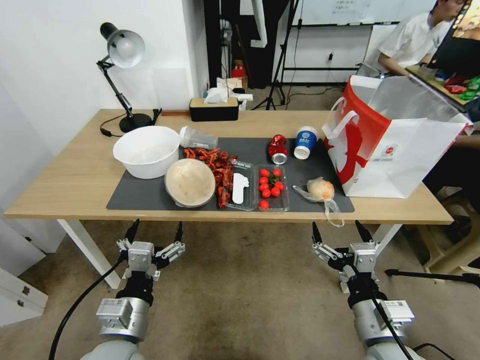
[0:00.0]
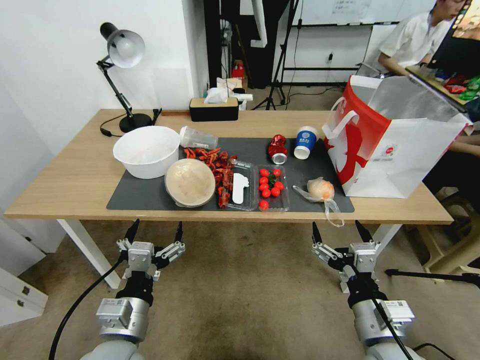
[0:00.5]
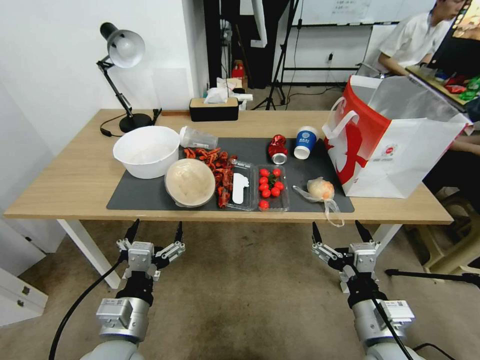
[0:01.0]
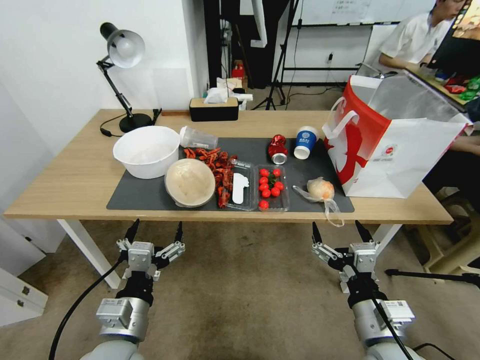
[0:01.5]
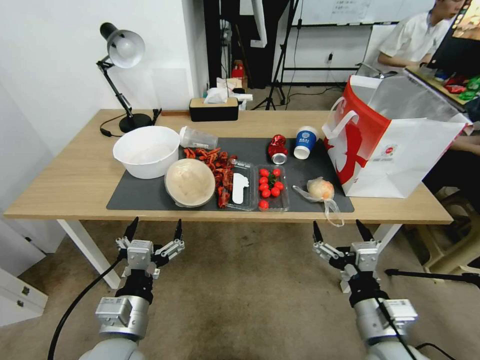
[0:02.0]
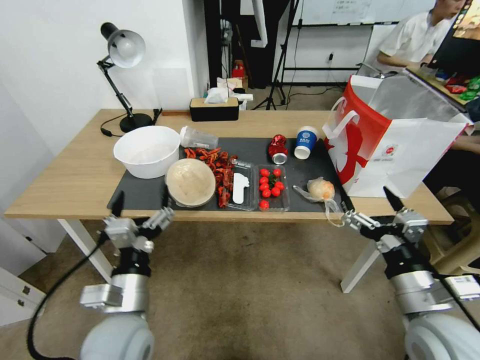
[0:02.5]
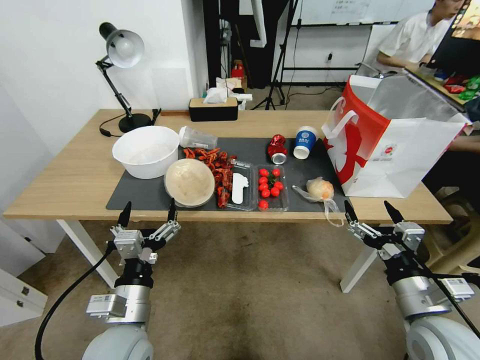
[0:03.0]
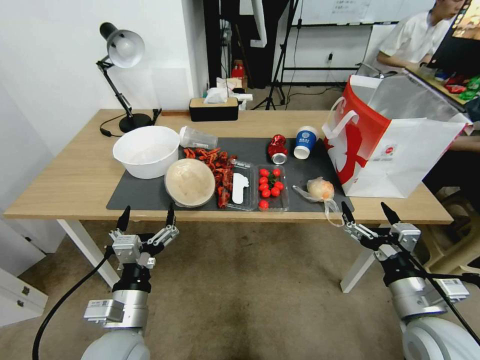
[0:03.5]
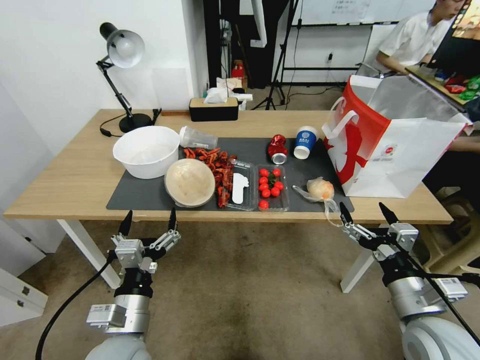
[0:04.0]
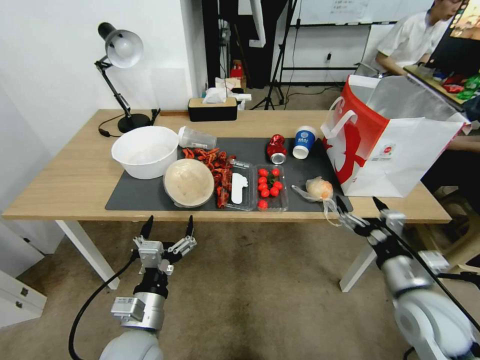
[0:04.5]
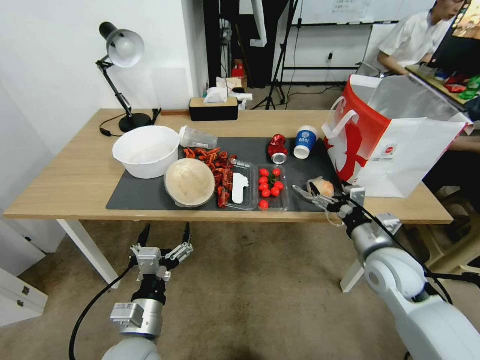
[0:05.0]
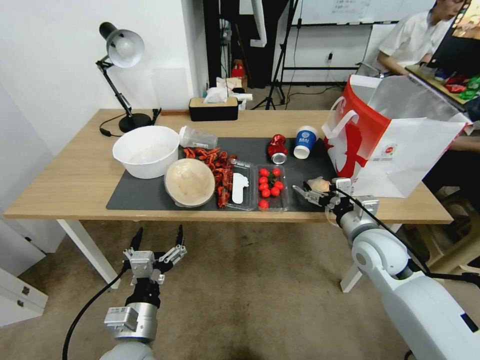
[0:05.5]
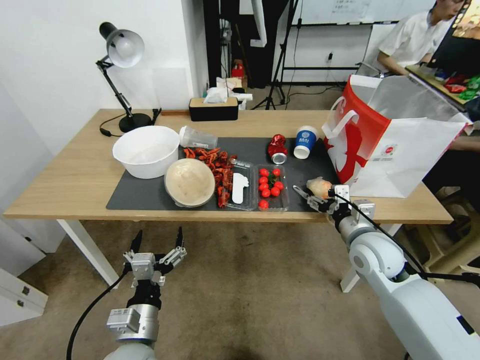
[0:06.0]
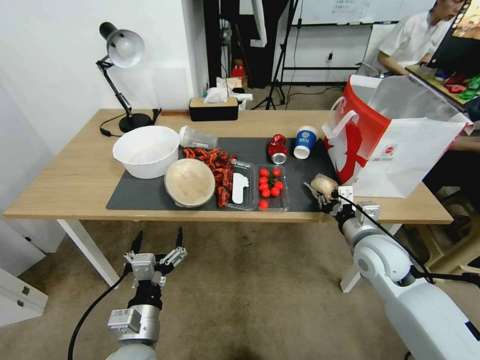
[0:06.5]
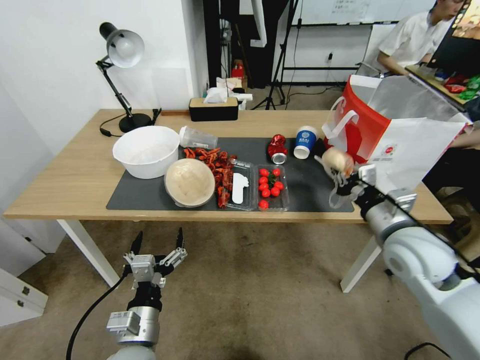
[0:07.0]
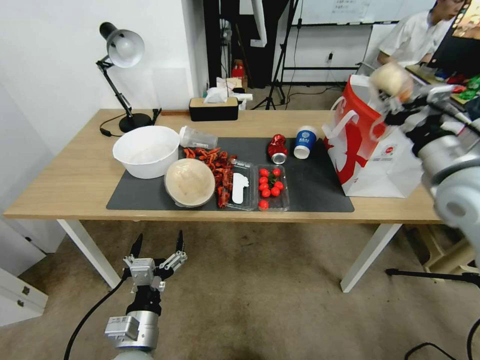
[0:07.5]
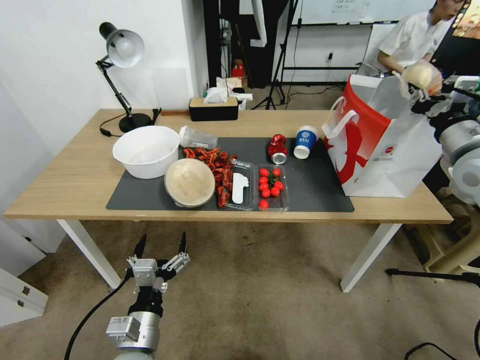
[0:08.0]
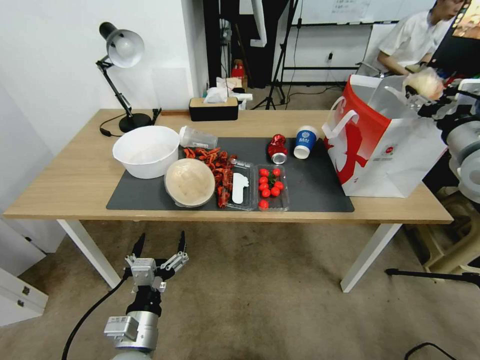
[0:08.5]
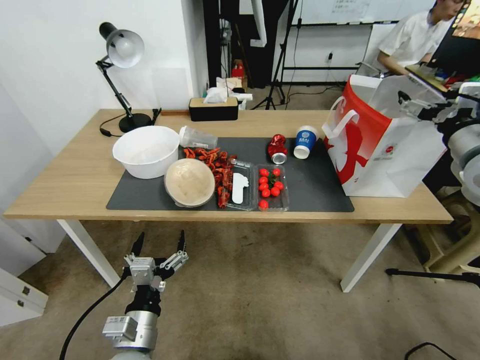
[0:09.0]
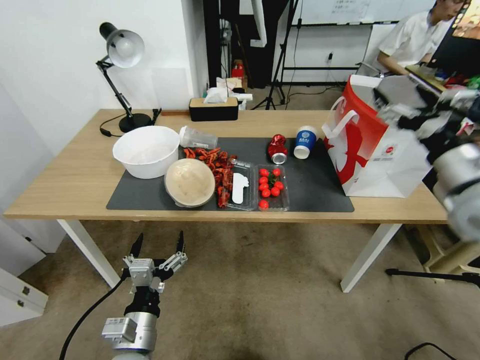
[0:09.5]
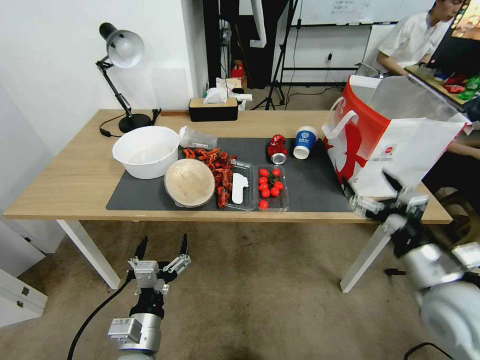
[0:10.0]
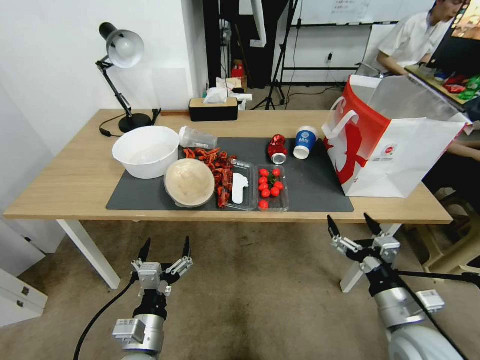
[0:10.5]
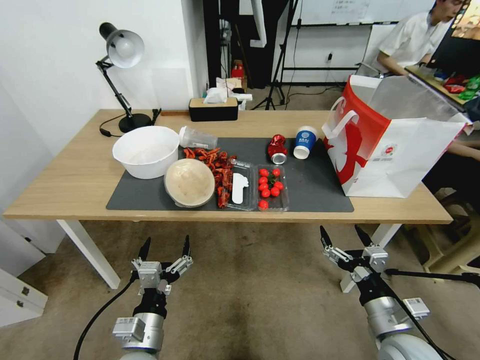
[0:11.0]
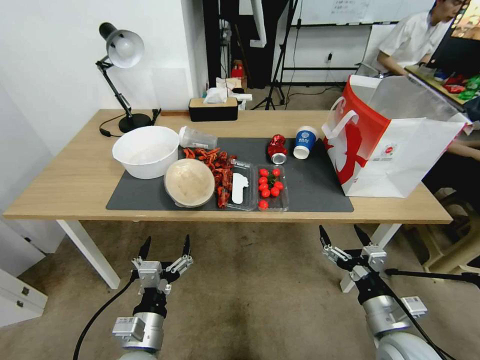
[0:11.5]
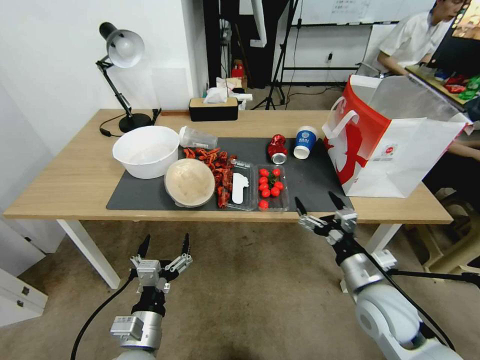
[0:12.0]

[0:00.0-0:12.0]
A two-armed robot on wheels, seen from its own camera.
0:02.0 to 0:04.0: The right gripper heads to the right, covering about 10 cm.
0:04.0 to 0:06.0: The right gripper goes about 15 cm forward.
0:06.0 to 0:08.0: The right gripper travels upward and to the right by about 25 cm, and closes its fingers.
0:08.0 to 0:10.0: The right gripper shifts approximately 25 cm backward, downward and to the left, and opens its fingers.
0:10.0 to 0:12.0: The right gripper heads downward and to the left, covering approximately 10 cm.

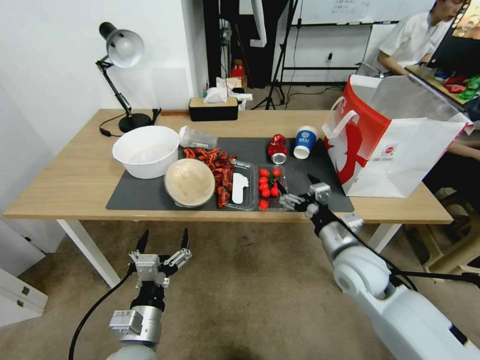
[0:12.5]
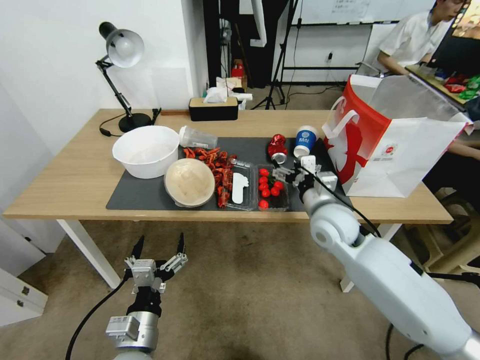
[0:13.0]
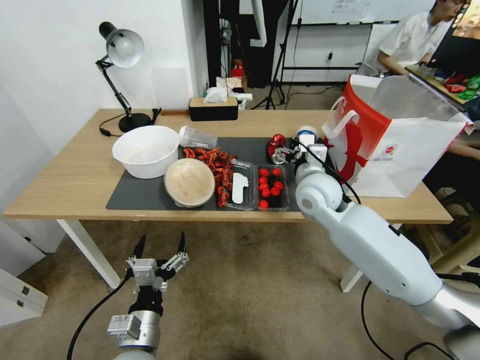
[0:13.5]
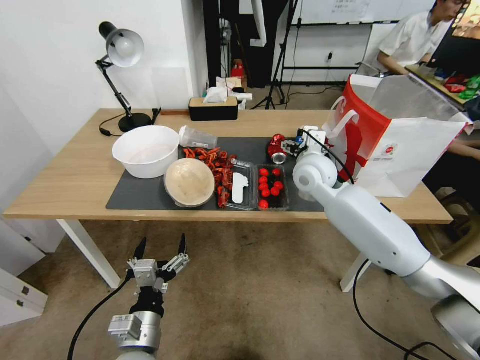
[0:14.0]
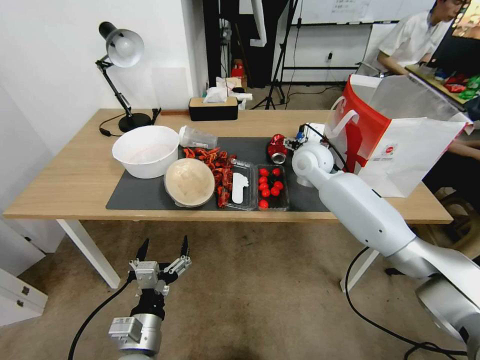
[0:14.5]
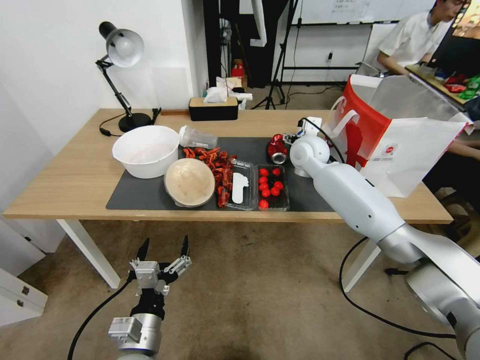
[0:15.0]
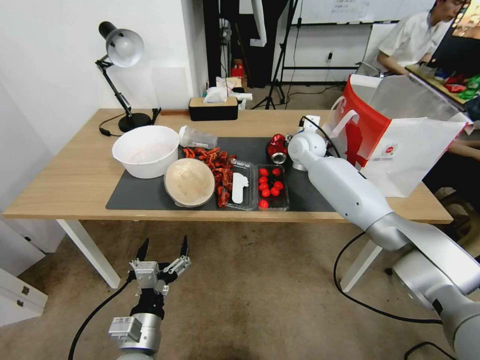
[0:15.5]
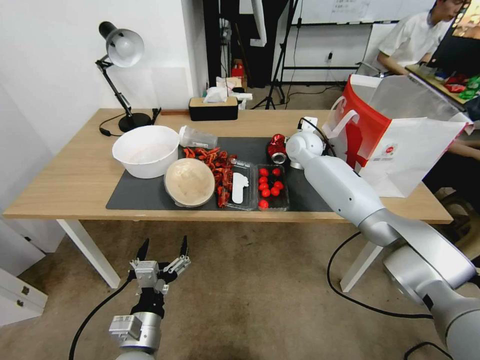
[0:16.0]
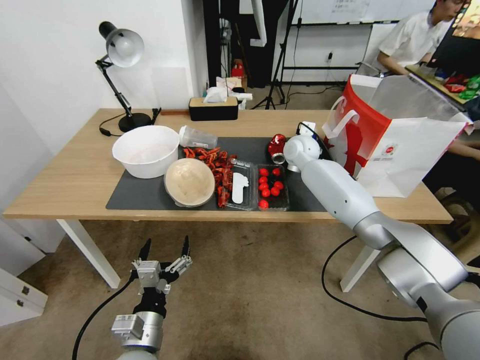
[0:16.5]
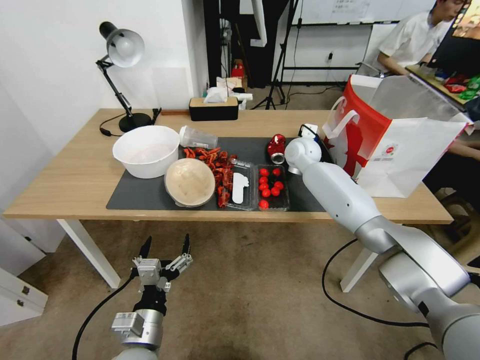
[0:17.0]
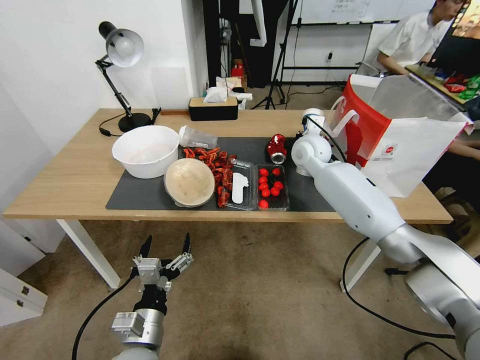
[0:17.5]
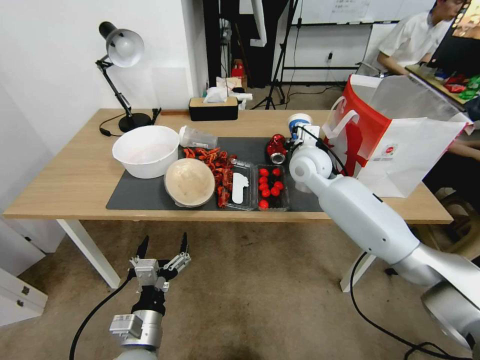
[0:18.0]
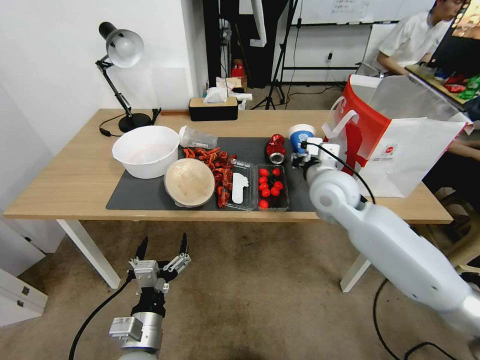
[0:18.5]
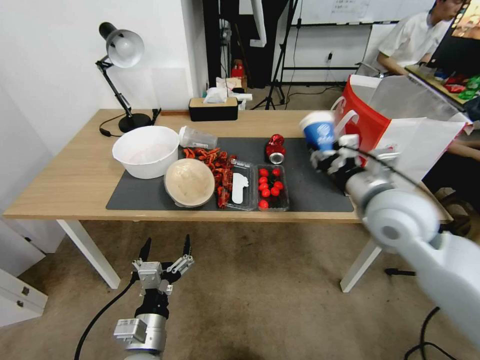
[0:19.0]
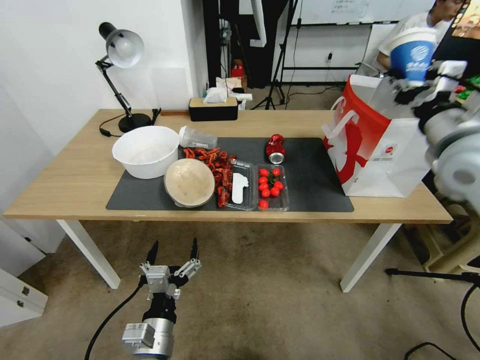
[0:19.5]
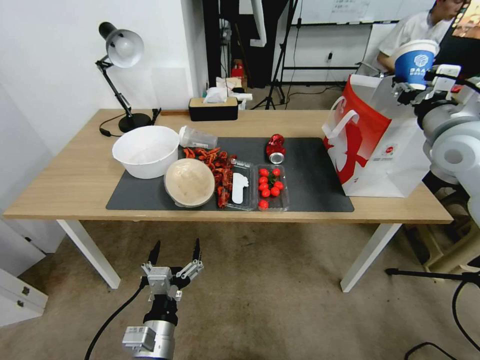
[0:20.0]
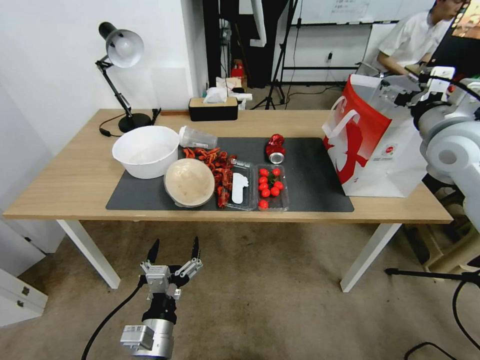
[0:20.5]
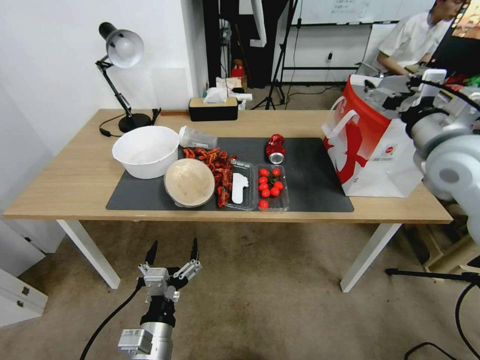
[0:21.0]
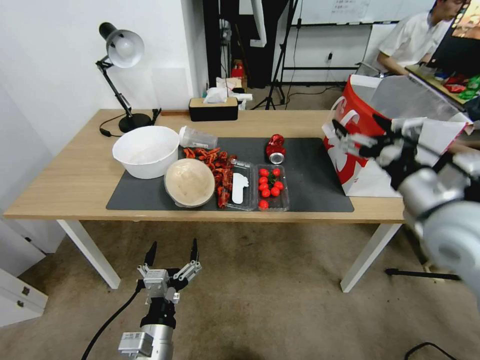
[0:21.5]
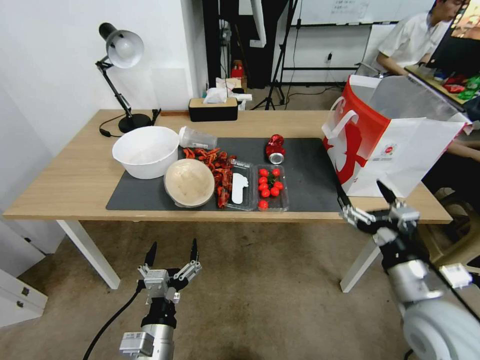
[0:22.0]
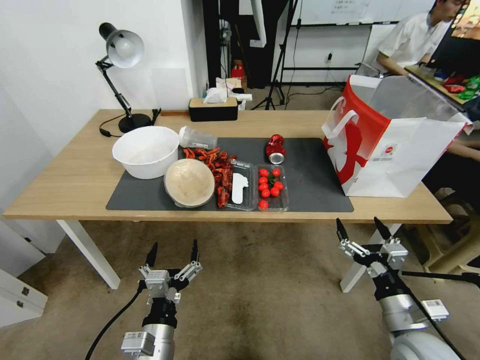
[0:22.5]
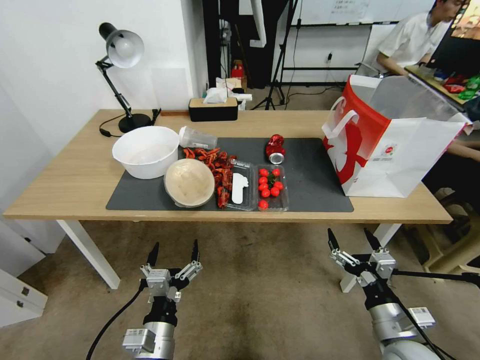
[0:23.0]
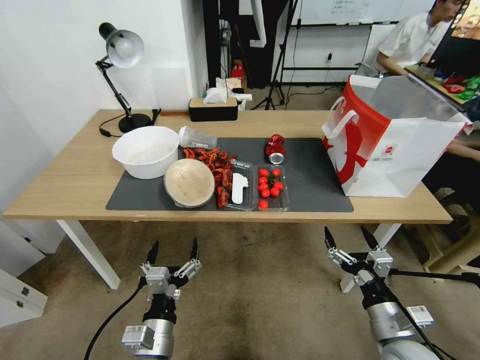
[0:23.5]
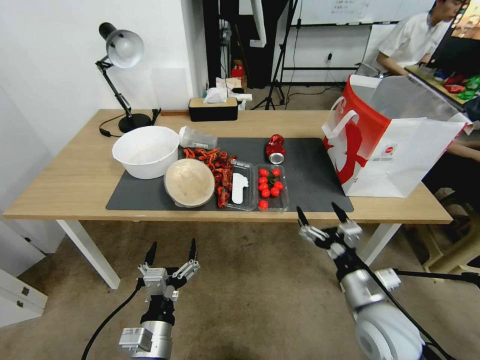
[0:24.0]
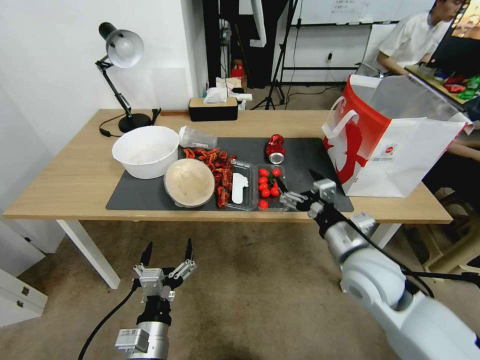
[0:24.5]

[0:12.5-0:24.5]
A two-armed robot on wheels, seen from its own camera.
0:12.5 to 0:14.5: The right gripper heads forward and upward, covering some 25 cm.
0:14.5 to 0:16.5: The right gripper goes roughly 10 cm forward.
0:16.5 to 0:18.5: The right gripper shifts some 20 cm backward, and closes its fingers.
0:18.5 to 0:20.5: The right gripper moves to the right and upward, some 20 cm, and opens.
0:20.5 to 0:22.5: The right gripper heads downward and backward, covering about 40 cm.
0:22.5 to 0:24.5: The right gripper travels forward, upward and to the left by about 20 cm.

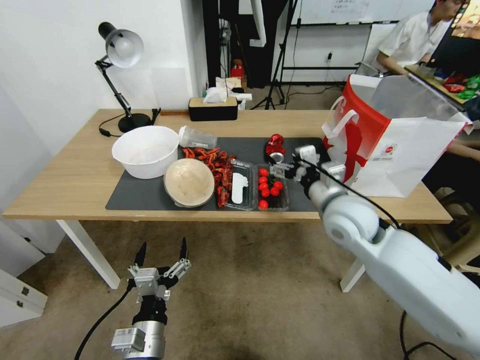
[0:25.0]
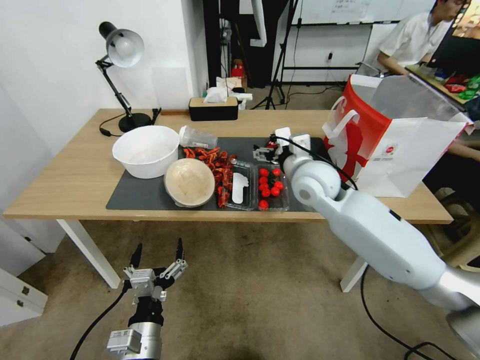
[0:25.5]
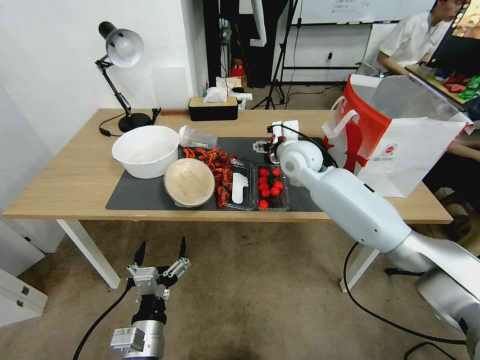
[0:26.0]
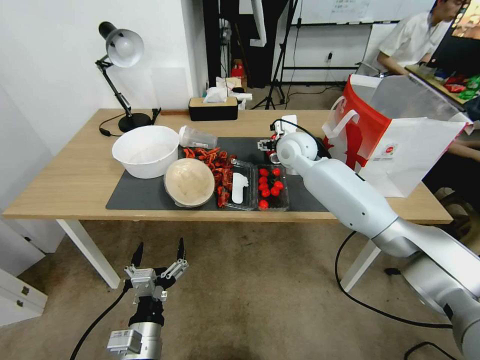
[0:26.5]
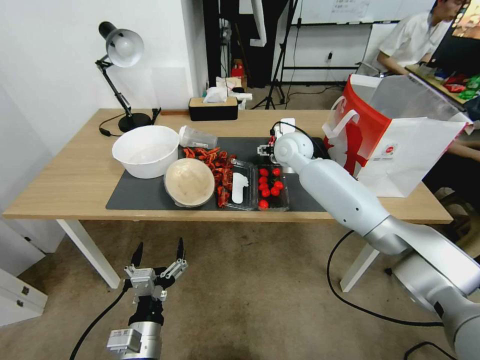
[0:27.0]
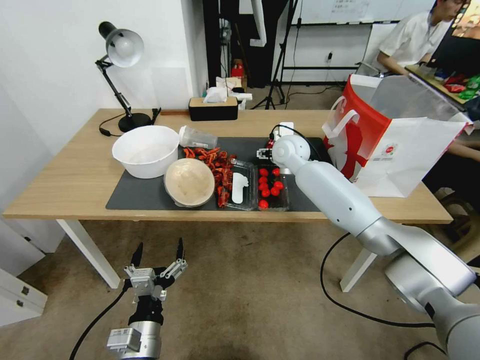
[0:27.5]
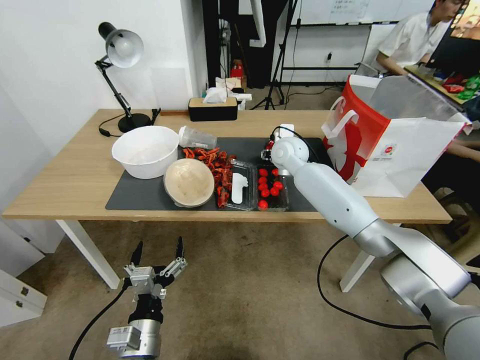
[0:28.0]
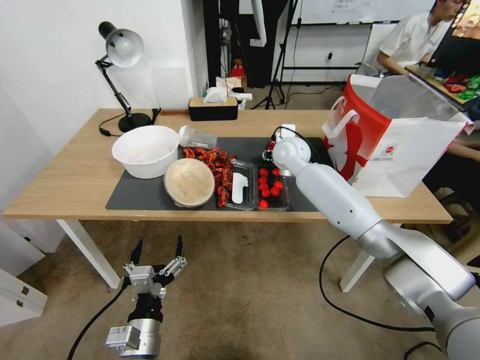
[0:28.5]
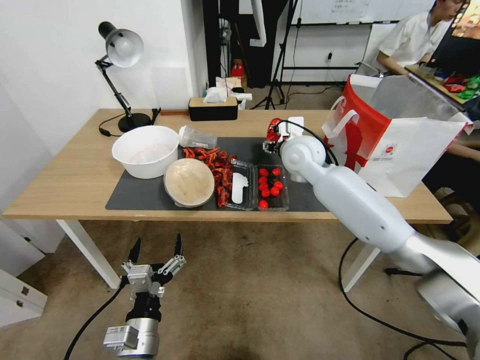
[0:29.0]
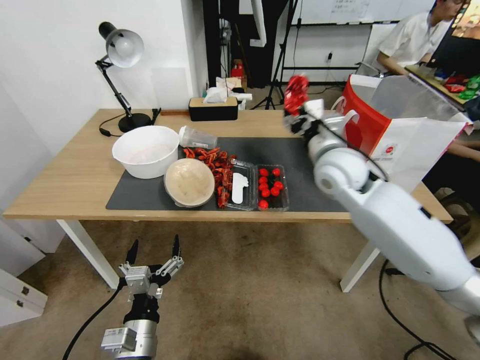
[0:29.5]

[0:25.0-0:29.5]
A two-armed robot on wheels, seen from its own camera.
0:25.0 to 0:27.0: The right gripper travels forward by about 20 cm.
0:27.0 to 0:29.5: The right gripper heads backward and to the right, covering some 15 cm, and closes up.
